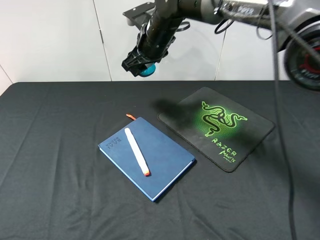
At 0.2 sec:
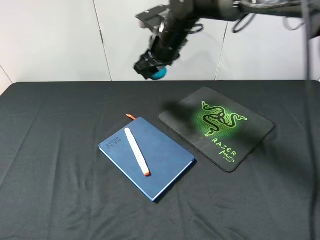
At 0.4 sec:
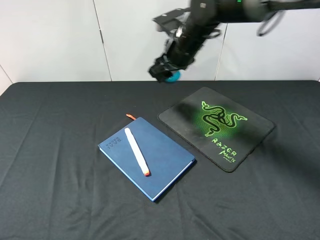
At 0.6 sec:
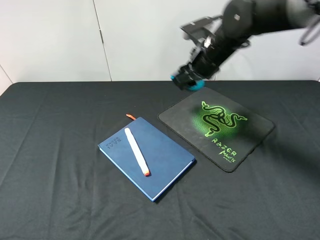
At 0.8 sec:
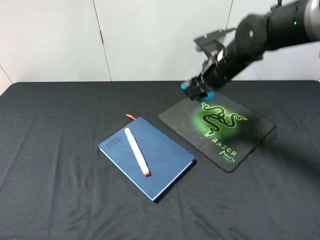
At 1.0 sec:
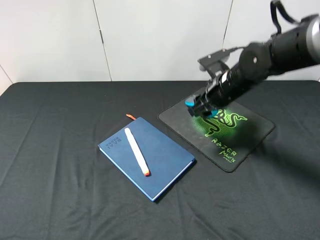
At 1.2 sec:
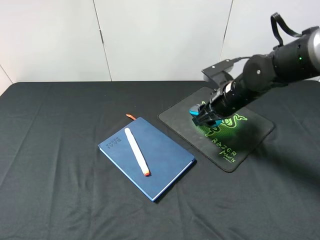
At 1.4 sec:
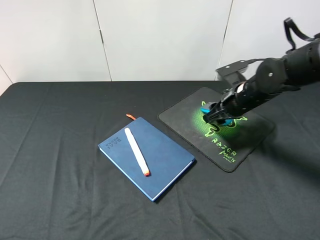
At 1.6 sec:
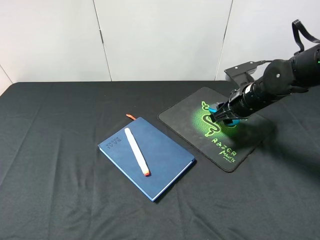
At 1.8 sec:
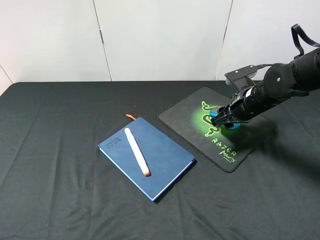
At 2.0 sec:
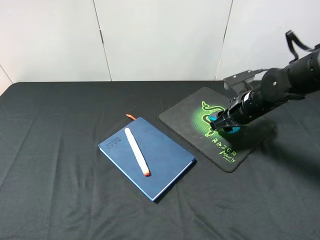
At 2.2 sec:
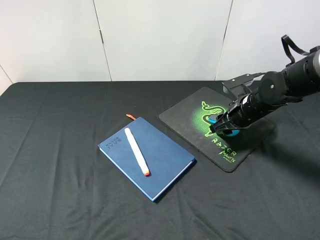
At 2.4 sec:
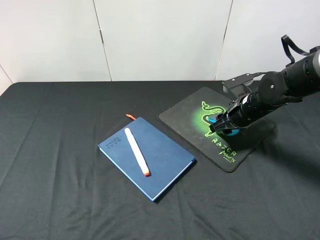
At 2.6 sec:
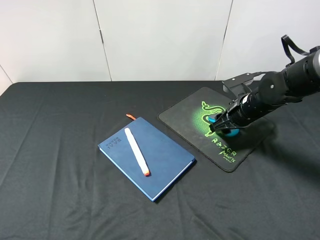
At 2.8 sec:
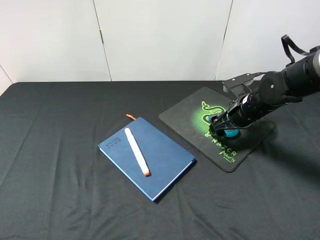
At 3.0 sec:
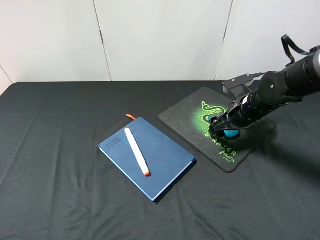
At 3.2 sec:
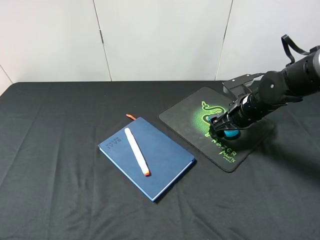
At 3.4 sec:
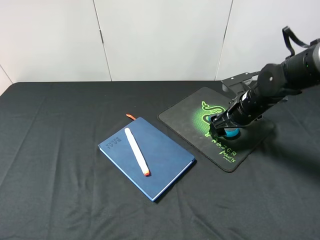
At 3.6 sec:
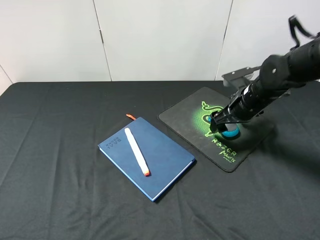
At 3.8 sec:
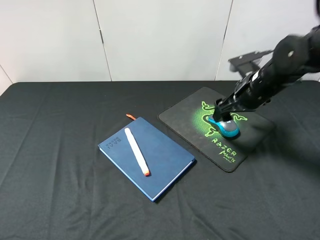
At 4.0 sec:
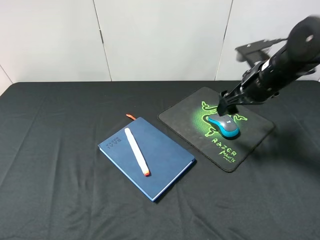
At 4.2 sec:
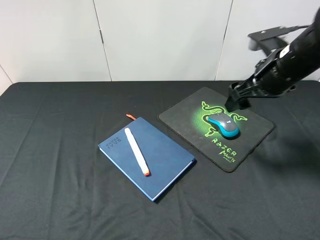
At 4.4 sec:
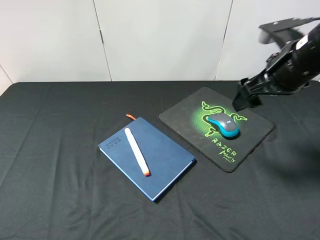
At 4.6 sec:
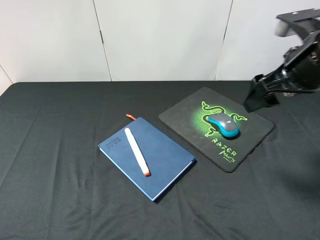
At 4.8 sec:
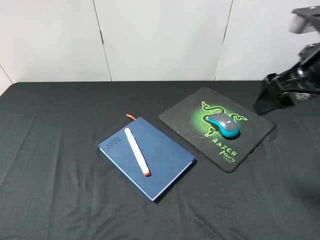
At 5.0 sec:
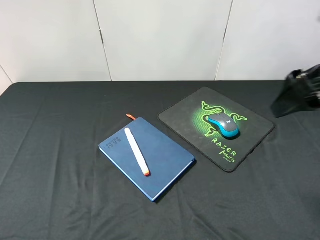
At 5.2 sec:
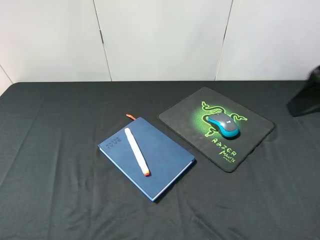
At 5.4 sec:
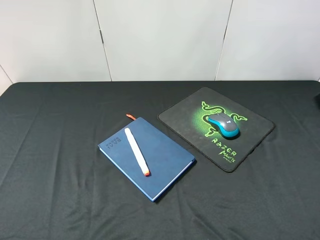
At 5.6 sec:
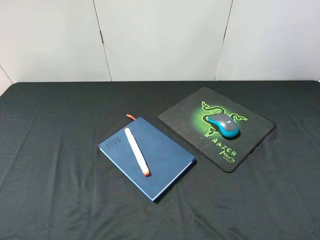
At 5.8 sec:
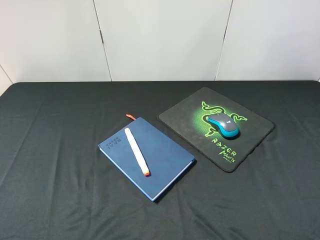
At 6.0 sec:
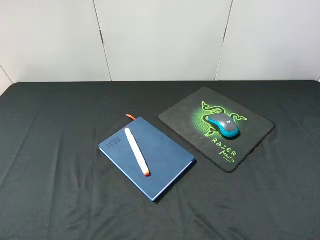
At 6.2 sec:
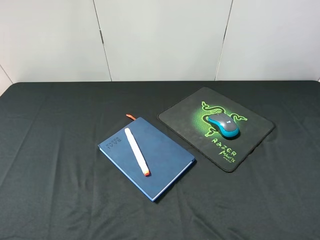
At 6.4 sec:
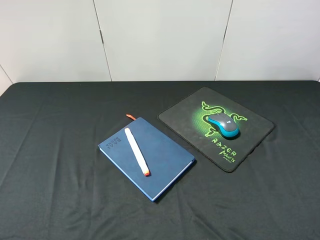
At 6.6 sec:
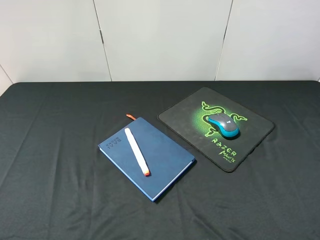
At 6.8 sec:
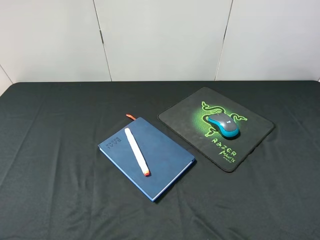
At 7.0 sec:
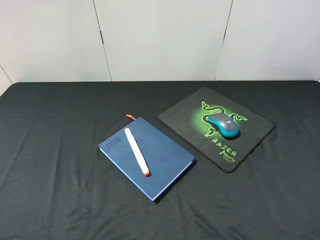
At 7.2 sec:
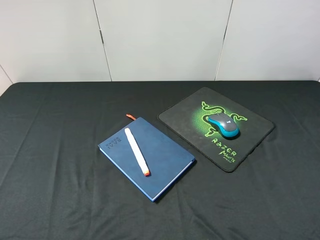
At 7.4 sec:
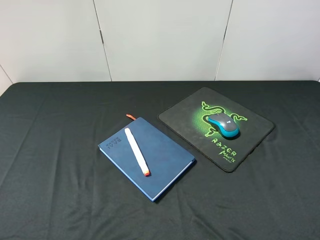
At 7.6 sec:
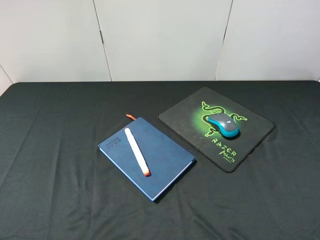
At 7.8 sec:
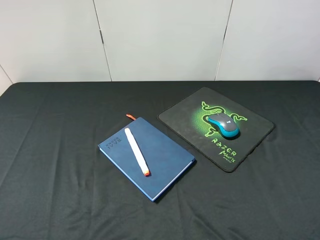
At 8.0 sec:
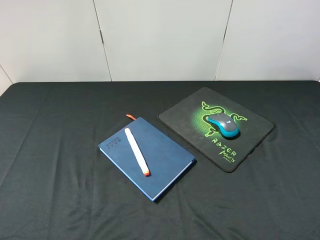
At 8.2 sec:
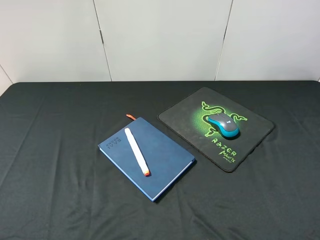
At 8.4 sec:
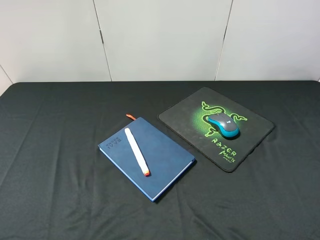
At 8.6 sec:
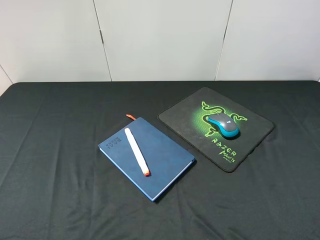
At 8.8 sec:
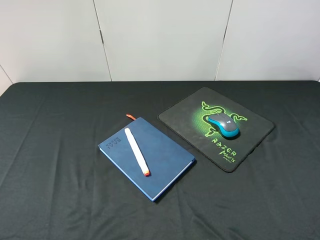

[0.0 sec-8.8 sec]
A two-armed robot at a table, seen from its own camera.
Step, 0.0 sec to 4.0 sec: Place the mouse on the mouse pad with right gripper.
0.0 sec to 1.4 sec: The right gripper heads to the right, downward and backward, covering approximately 25 cm.
1.4 sec to 3.0 sec: The right gripper opens up.
3.0 sec to 4.4 sec: The right gripper shifts some 15 cm upward and backward.
4.4 sec to 5.8 sec: The right gripper moves backward and upward, about 25 cm.
7.4 sec to 8.8 sec: The two grippers keep their place.
